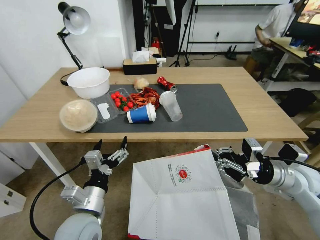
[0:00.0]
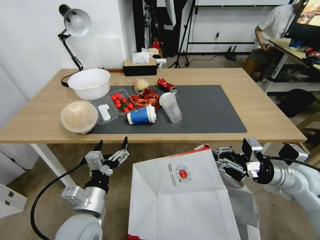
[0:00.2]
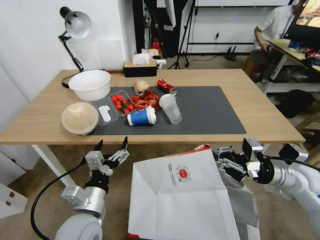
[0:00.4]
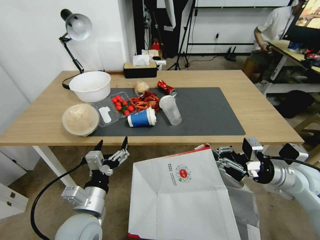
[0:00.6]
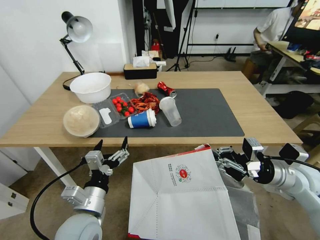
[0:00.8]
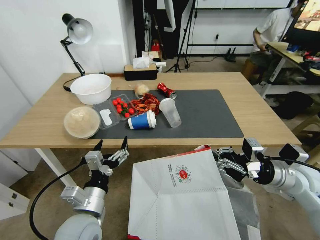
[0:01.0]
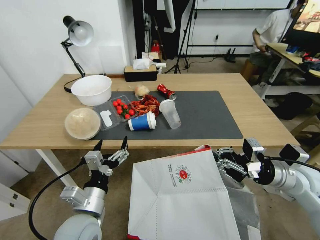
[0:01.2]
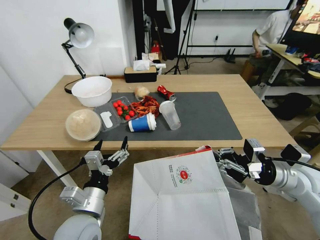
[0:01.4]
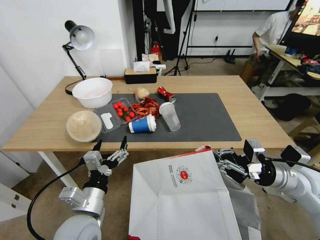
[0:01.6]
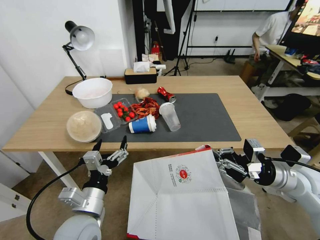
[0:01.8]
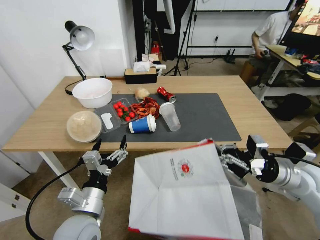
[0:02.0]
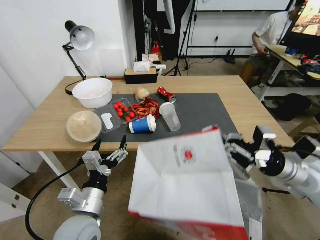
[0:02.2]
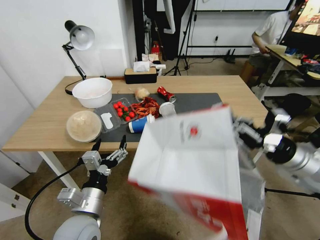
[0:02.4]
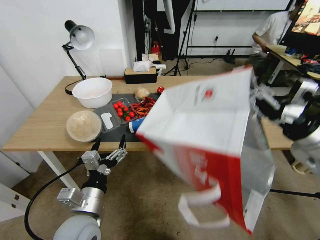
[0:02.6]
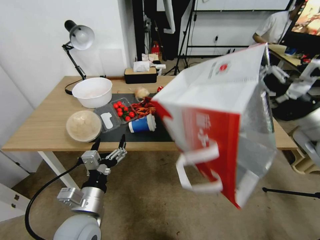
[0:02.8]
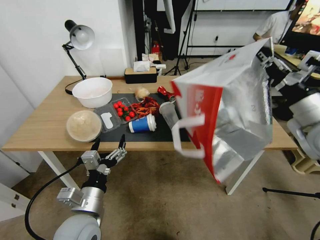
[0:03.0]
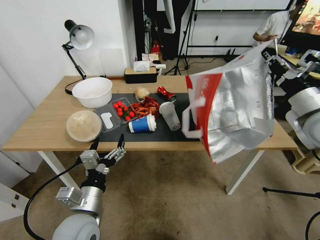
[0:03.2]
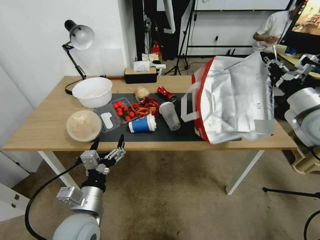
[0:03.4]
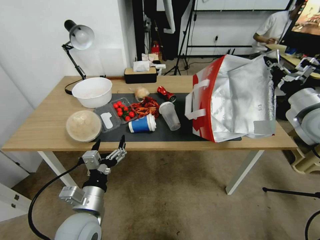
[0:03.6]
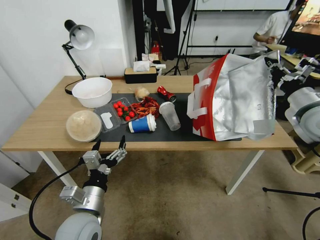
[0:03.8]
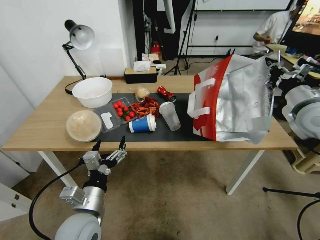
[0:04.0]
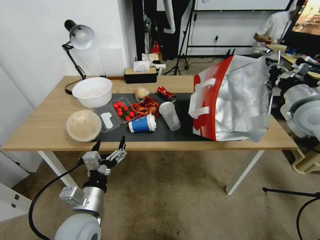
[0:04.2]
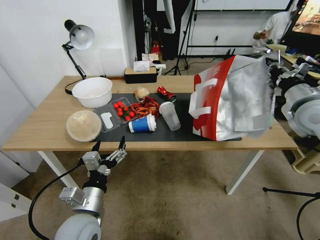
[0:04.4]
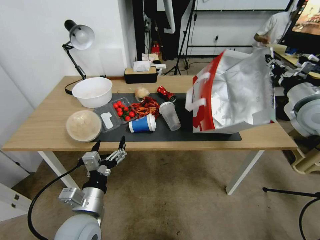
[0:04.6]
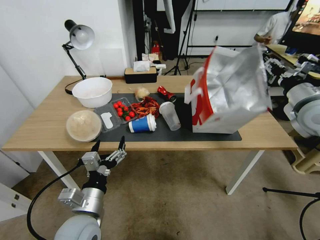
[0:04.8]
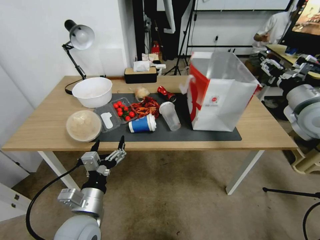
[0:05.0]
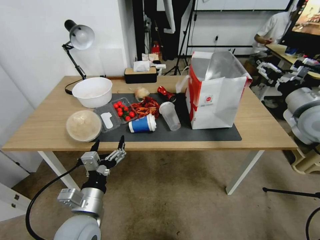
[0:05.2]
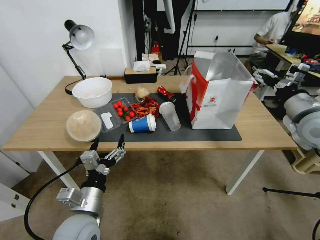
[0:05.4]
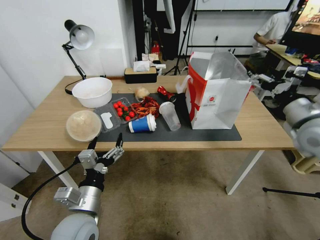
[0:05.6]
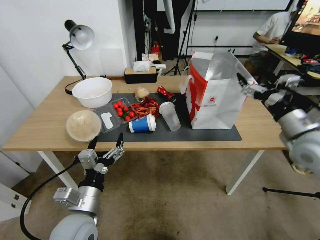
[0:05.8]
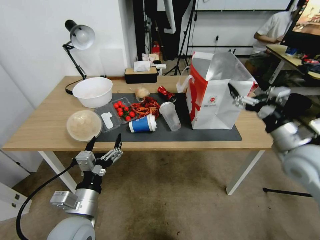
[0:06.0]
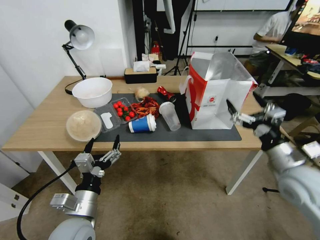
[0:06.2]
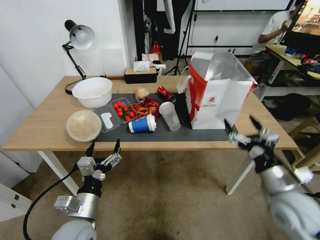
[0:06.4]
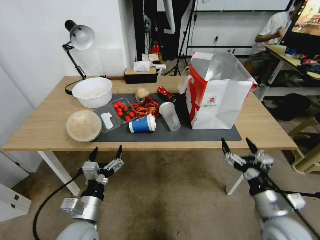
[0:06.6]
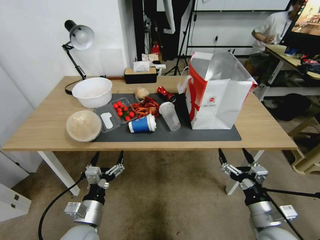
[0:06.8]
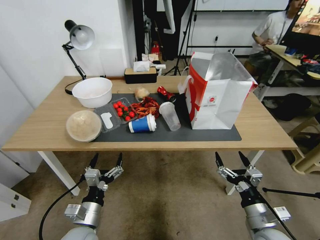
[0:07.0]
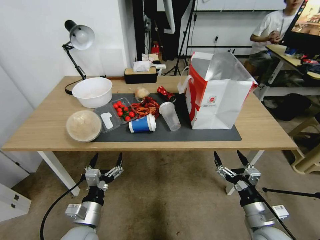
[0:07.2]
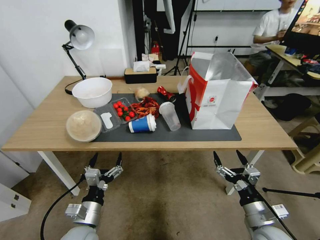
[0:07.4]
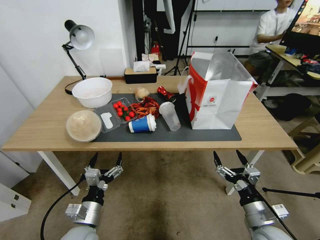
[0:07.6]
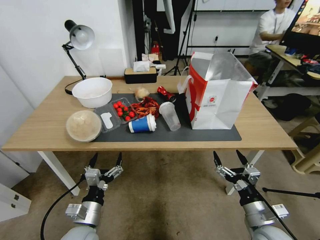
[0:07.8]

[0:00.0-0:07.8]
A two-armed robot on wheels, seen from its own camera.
Task of the whole recording: Pick up the food delivery bag from the floor and place it on the table.
0:01.6 to 0:03.2: The right gripper goes approximately 15 cm upward and forward.
0:03.2 to 0:04.6: The grippers make only small movements.
0:04.6 to 0:06.2: The right gripper is displaced downward, backward and to the left by about 20 cm, and opens.
0:06.2 to 0:07.8: The left gripper travels downward by about 10 cm; the right gripper is displaced downward and backward by about 20 cm.

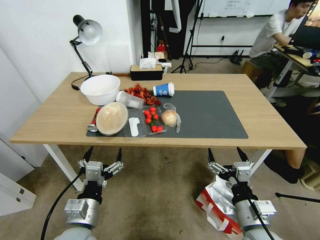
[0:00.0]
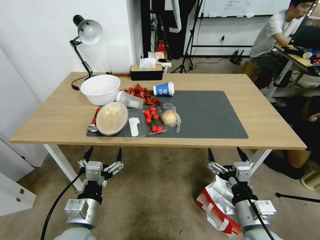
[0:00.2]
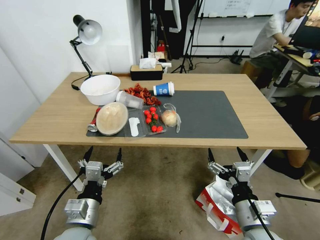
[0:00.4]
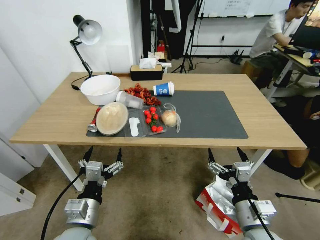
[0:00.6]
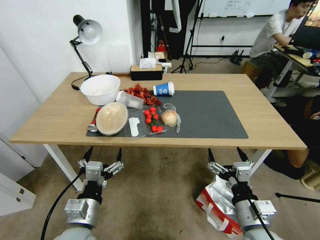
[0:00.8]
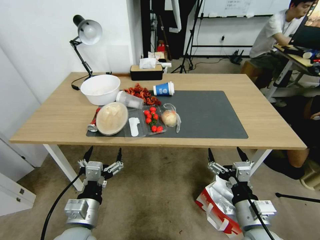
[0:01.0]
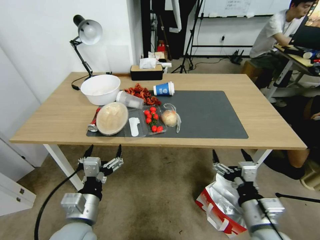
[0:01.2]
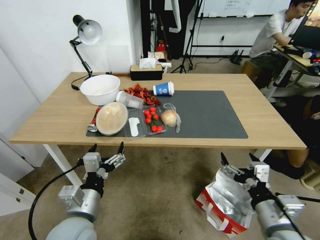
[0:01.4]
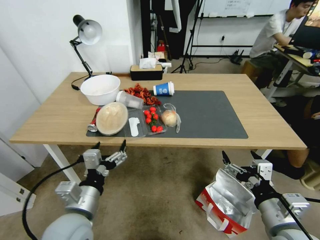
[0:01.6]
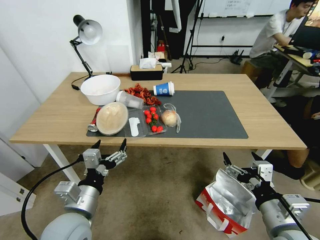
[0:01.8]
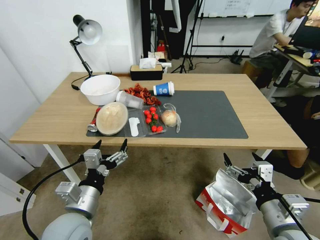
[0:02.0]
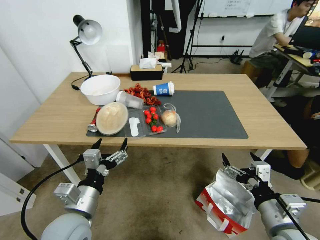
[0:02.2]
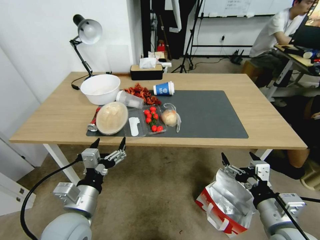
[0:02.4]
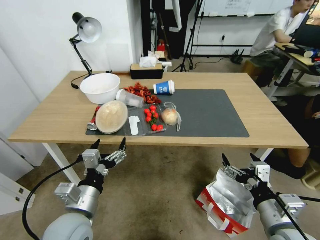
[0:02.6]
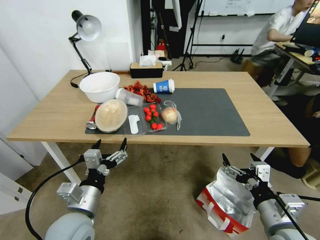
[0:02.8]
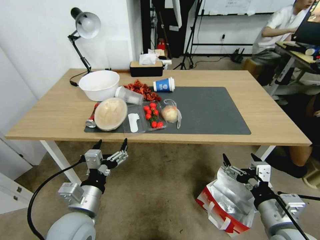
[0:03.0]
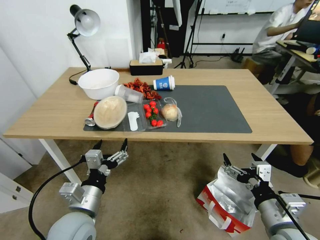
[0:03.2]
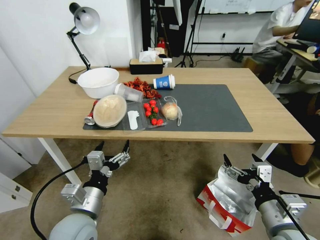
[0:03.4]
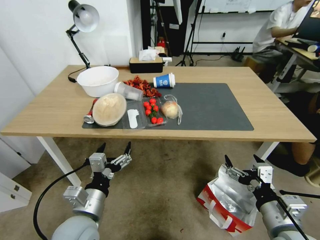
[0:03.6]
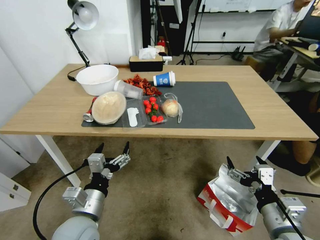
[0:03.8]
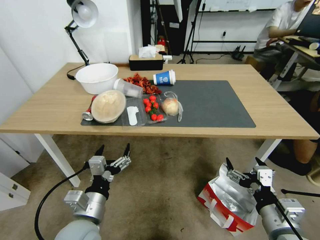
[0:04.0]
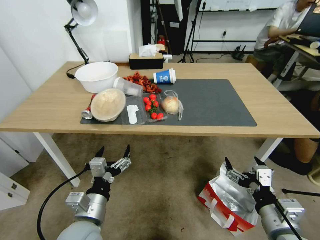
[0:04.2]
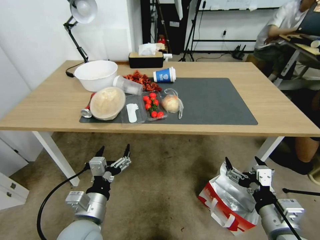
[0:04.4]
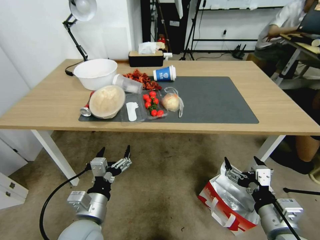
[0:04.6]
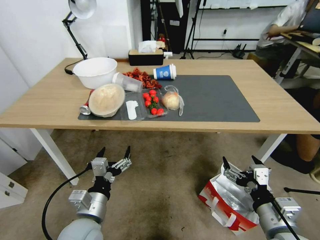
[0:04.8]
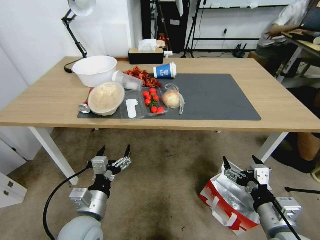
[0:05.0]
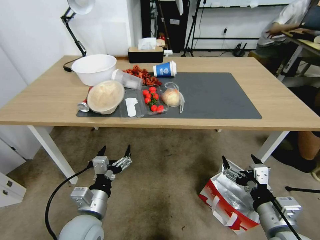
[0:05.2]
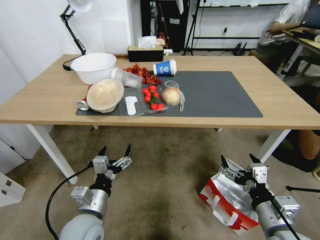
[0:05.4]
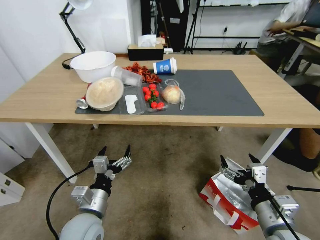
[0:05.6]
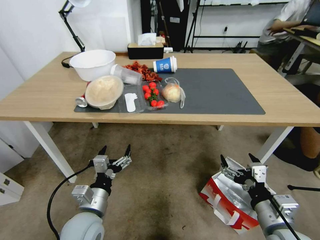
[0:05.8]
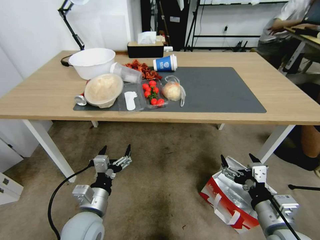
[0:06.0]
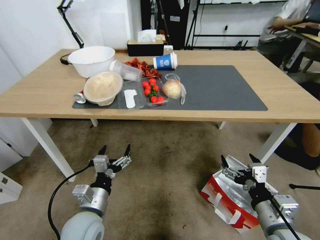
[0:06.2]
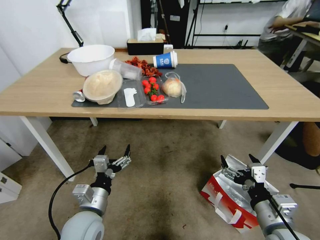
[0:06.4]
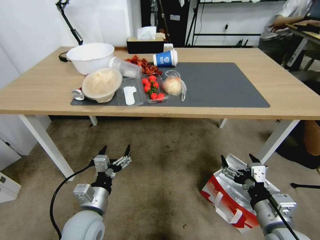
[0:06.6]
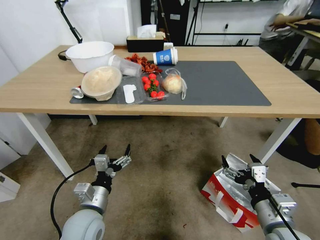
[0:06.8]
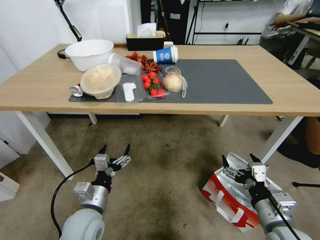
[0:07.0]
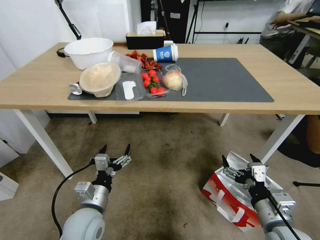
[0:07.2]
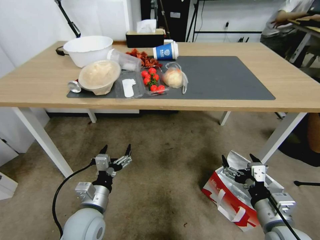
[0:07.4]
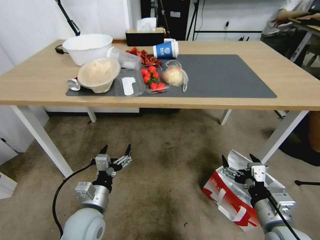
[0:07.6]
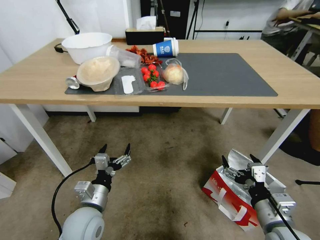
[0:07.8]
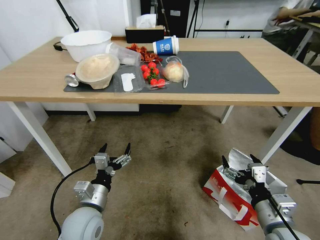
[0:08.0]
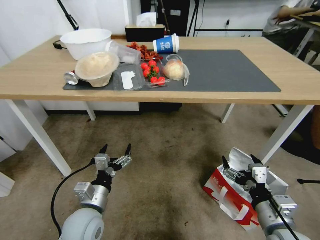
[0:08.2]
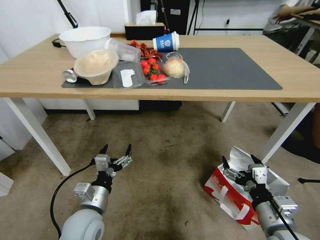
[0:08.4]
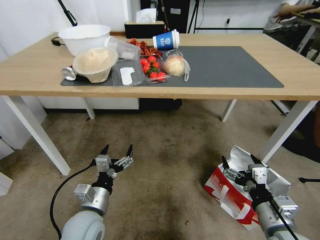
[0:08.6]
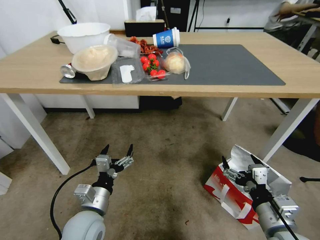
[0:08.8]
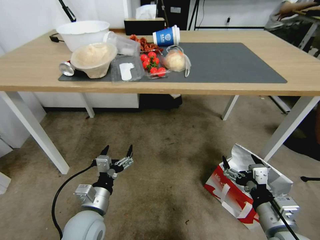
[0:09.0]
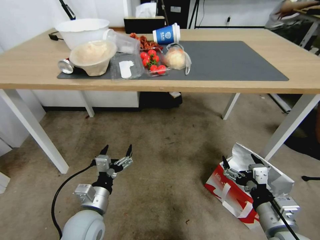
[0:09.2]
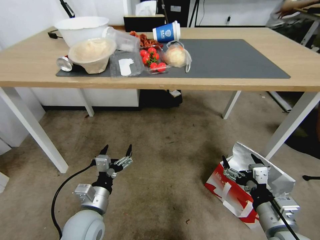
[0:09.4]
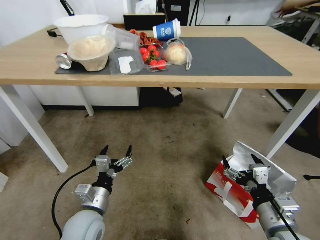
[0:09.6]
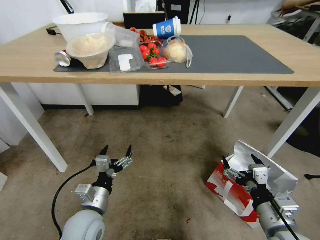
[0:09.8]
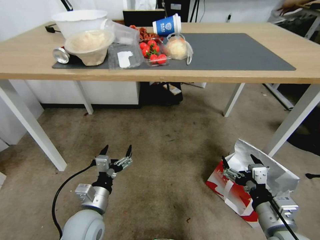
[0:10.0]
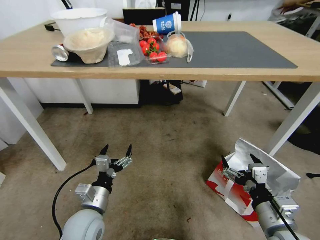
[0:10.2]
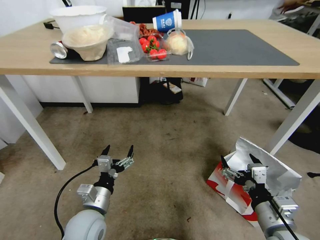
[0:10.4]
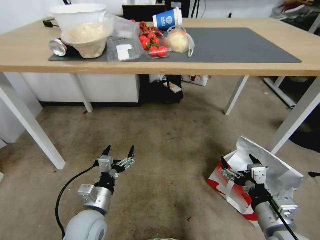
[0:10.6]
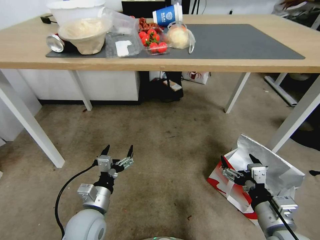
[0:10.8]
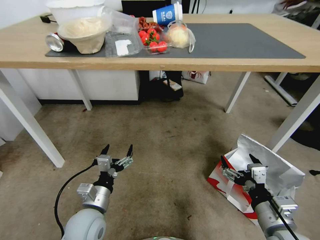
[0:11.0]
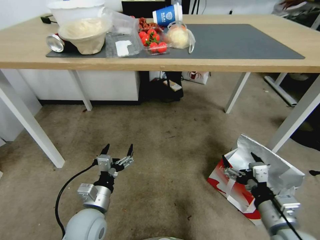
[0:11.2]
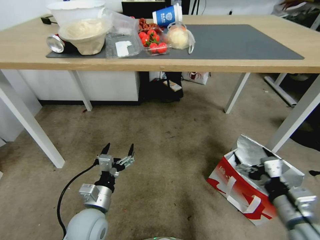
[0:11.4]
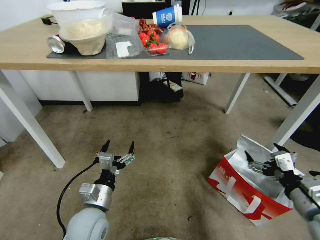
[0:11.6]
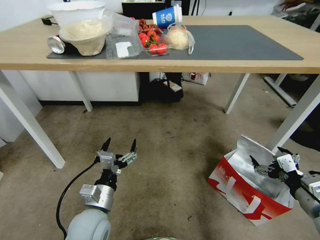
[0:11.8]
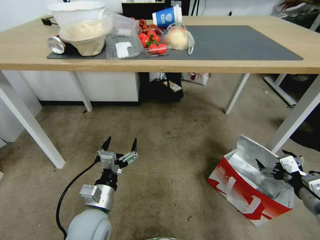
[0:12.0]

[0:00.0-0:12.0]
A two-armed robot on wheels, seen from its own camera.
Task of the whole recording: Pick up the food delivery bag from the floor and place it on the table.
0:10.4 to 0:12.0: The right gripper travels to the right by roughly 15 cm.

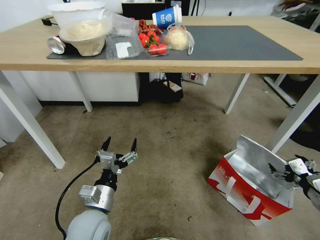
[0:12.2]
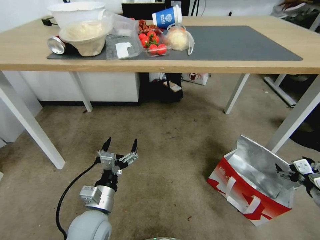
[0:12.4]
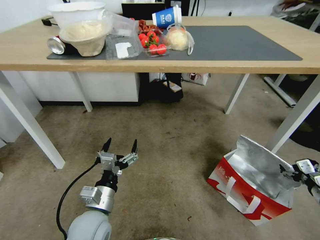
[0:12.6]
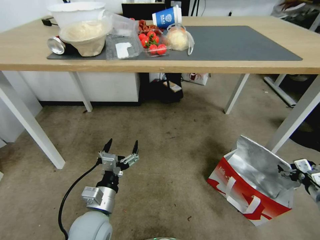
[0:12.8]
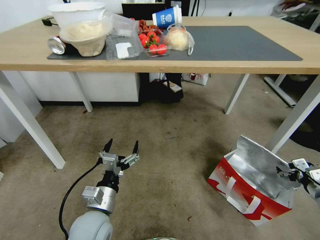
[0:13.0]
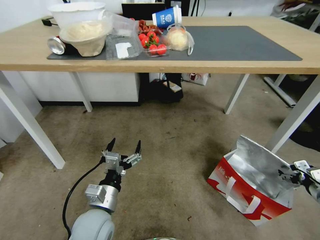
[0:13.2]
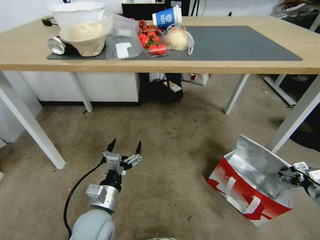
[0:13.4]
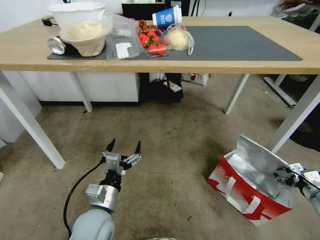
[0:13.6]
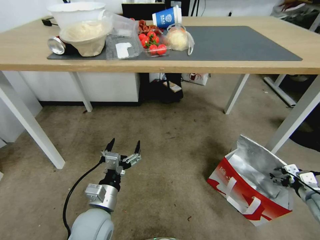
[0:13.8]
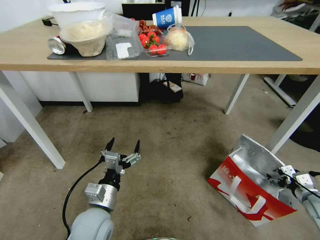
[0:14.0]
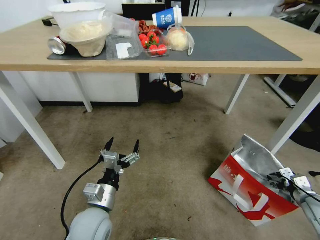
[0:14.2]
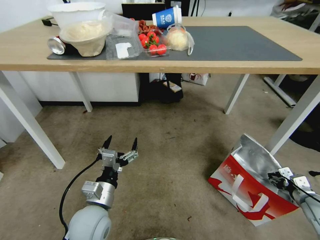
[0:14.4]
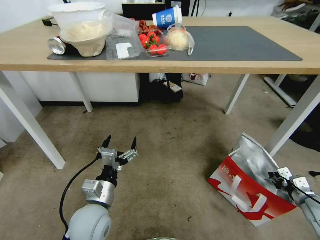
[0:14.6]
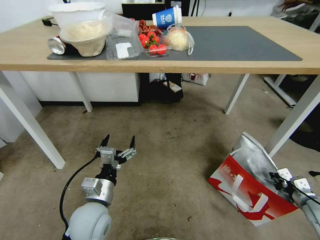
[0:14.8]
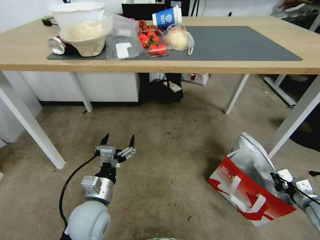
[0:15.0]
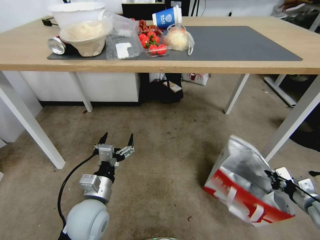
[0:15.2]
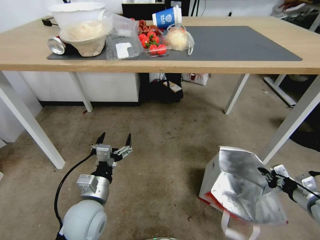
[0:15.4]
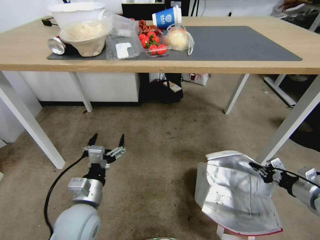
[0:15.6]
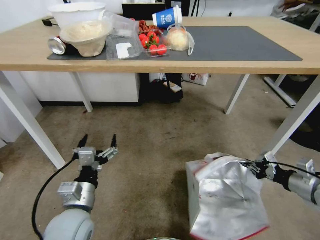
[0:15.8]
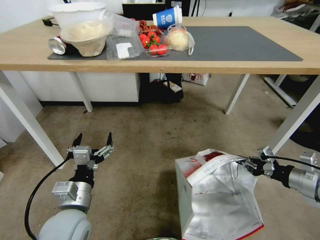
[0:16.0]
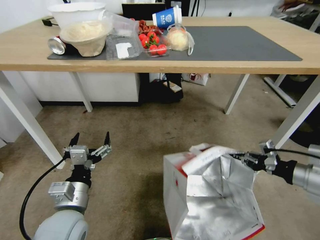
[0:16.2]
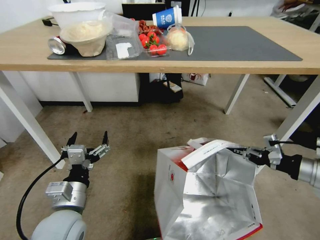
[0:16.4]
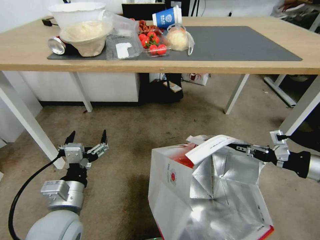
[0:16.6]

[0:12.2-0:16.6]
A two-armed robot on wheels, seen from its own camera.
Task of the whole recording: Pick up the food delivery bag from the floor and place it on the table.
0:12.2 to 0:13.6: The right gripper goes some 10 cm downward and to the right.
0:13.6 to 0:15.2: The right gripper closes.
0:15.2 to 0:16.6: The left gripper moves upward, roughly 5 cm, while the right gripper shifts approximately 20 cm upward.
